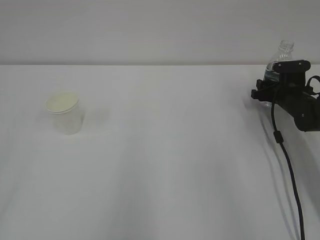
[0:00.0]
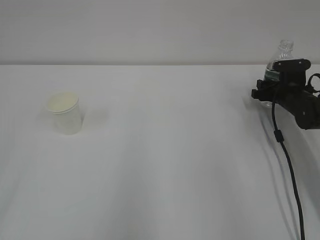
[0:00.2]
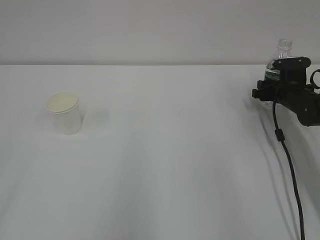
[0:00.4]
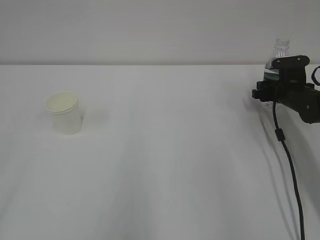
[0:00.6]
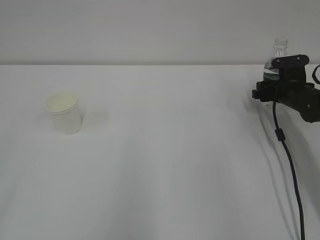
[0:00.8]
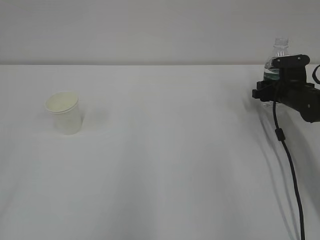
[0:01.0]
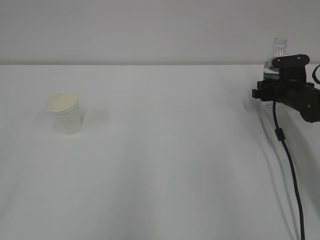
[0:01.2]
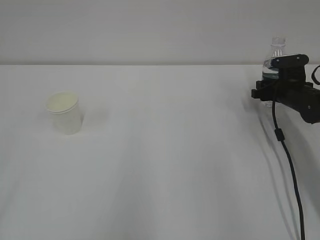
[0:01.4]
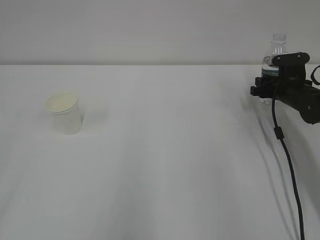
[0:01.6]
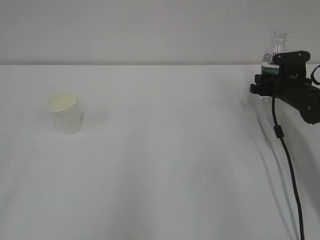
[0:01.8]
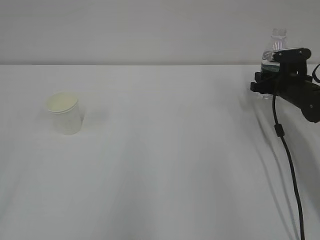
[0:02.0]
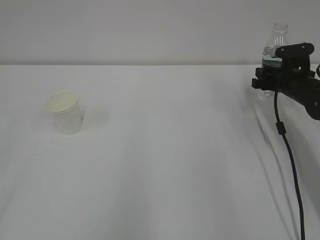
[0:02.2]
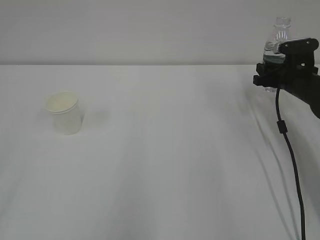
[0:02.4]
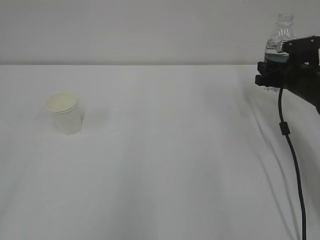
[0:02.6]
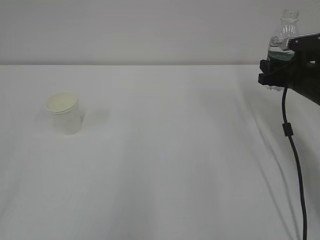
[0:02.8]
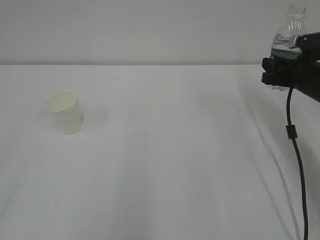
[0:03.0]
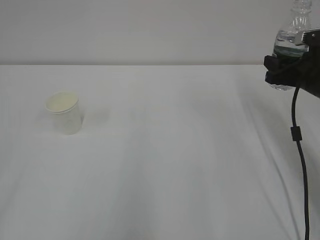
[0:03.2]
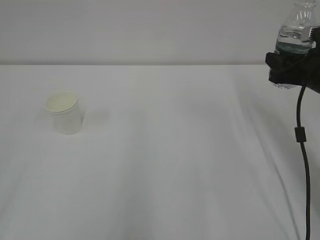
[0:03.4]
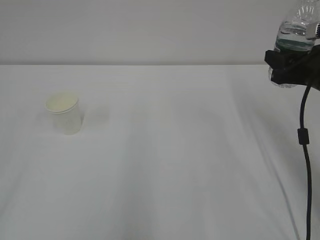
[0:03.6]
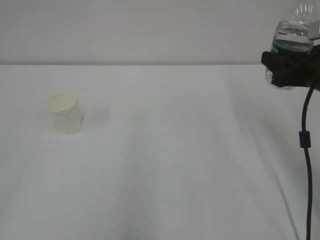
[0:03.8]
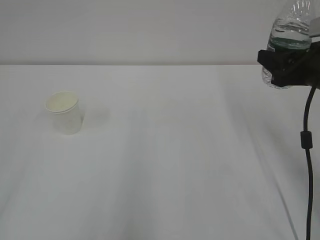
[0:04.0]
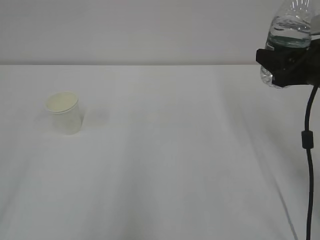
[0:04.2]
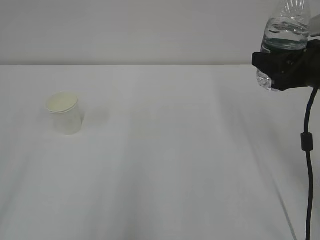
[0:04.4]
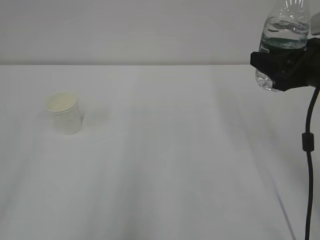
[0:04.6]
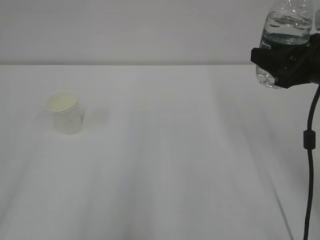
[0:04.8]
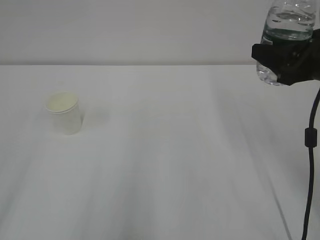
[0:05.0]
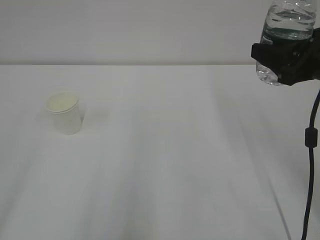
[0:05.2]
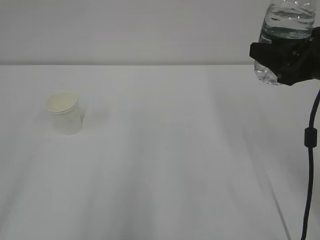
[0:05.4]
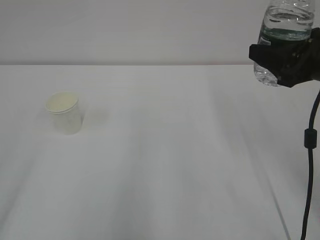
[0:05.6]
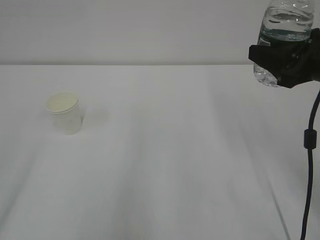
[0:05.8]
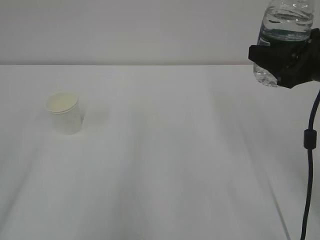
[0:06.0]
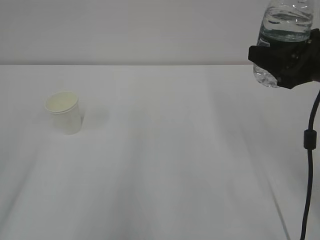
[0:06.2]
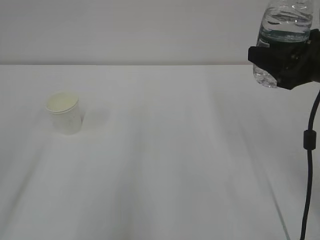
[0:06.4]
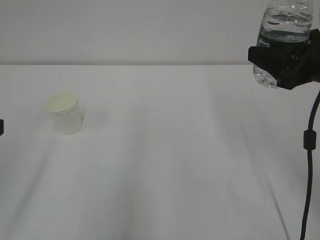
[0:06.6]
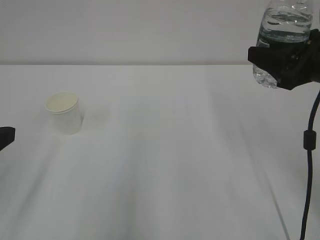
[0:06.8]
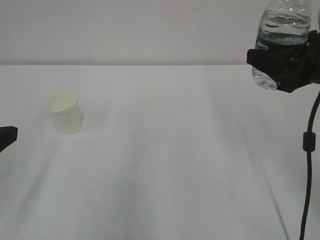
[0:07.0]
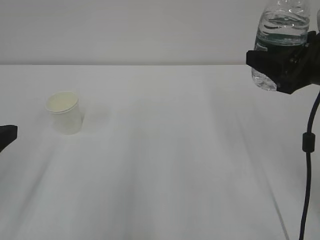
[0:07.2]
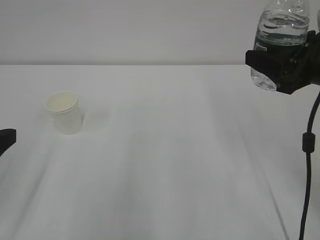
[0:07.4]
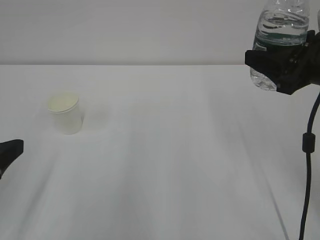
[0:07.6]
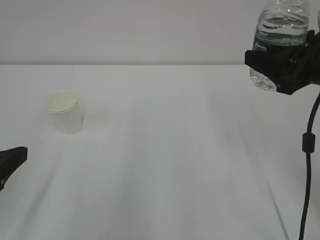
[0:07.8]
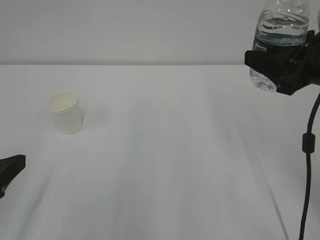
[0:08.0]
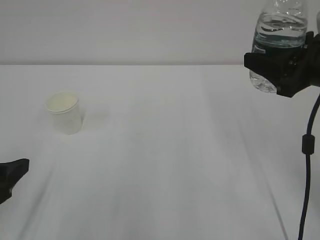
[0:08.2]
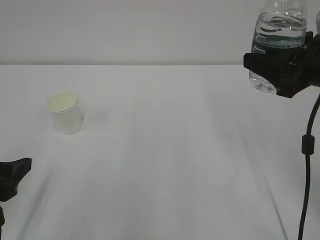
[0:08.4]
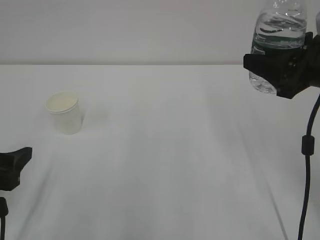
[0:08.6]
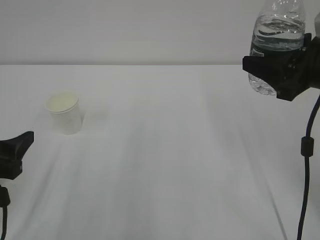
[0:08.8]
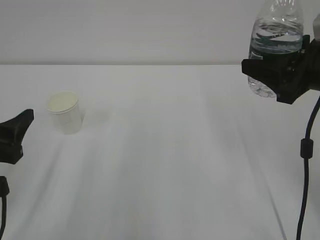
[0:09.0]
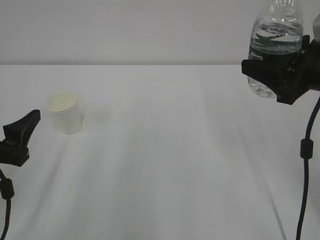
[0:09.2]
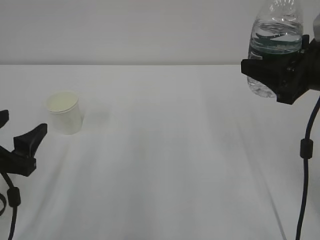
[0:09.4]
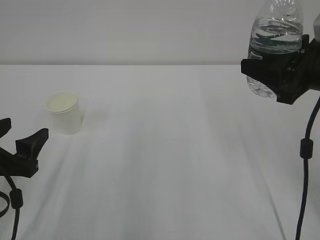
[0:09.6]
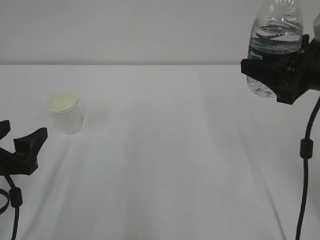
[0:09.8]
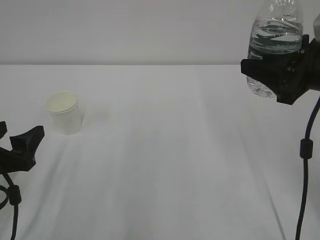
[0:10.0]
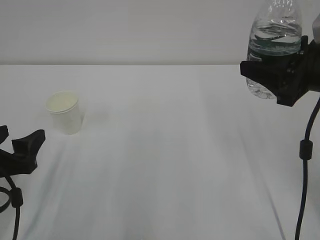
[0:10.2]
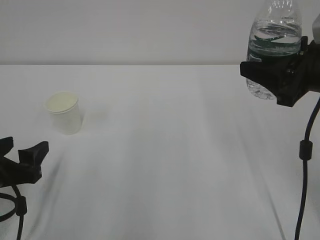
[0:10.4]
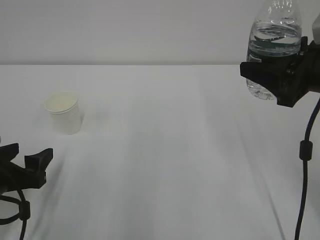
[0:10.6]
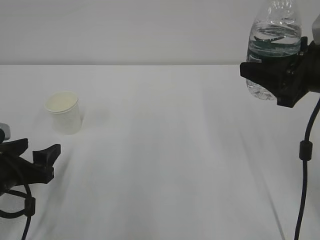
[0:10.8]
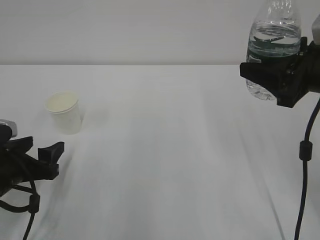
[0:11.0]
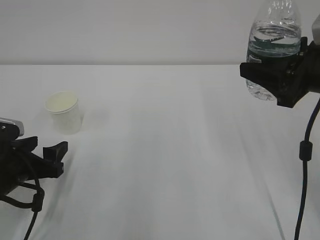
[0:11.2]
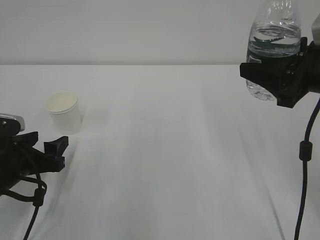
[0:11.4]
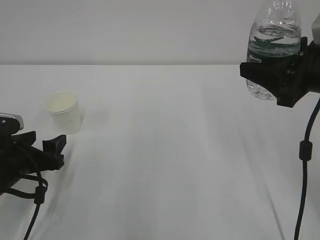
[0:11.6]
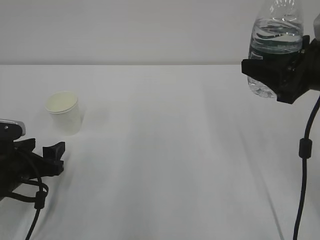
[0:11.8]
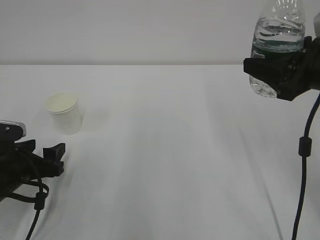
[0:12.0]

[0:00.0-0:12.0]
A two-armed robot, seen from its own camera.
0:00.0 to 0:01.6: The grippers move only a little.
0:01.6 to 0:03.0: The right gripper travels upward and backward by about 10 cm.
0:03.0 to 0:04.4: The right gripper travels backward and upward by about 10 cm.
0:06.0 to 0:07.6: The left gripper is displaced downward and forward by roughly 10 cm.
0:09.0 to 0:10.4: The left gripper travels downward by some 5 cm.
0:10.4 to 0:12.0: The left gripper changes place by approximately 5 cm.

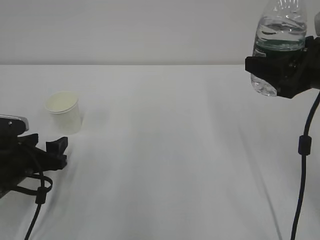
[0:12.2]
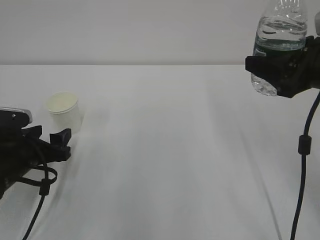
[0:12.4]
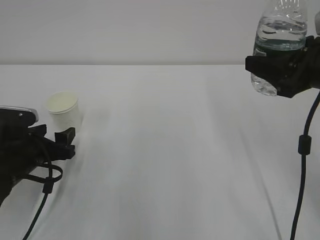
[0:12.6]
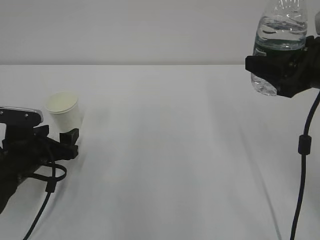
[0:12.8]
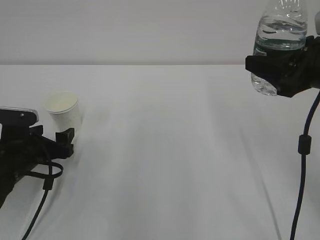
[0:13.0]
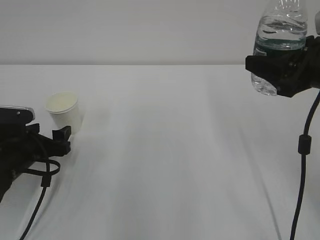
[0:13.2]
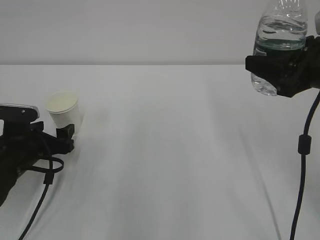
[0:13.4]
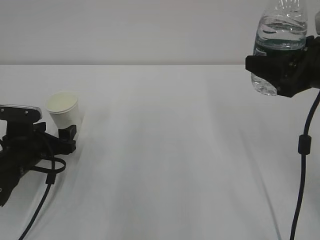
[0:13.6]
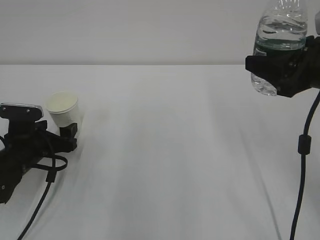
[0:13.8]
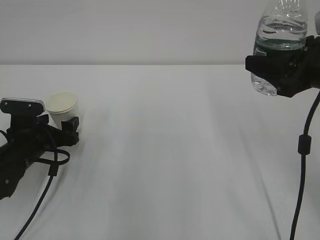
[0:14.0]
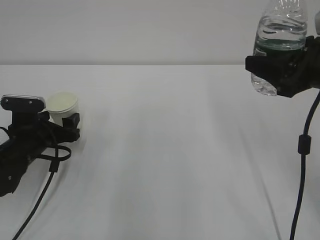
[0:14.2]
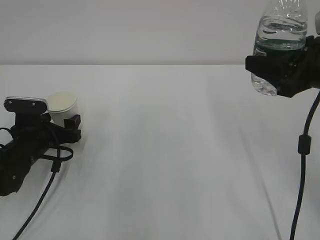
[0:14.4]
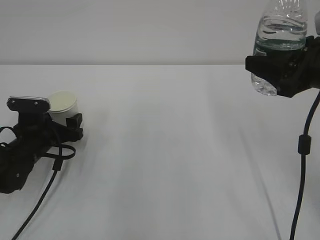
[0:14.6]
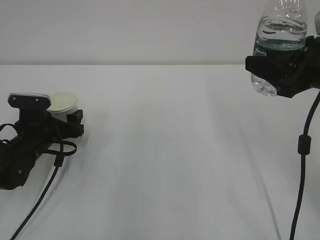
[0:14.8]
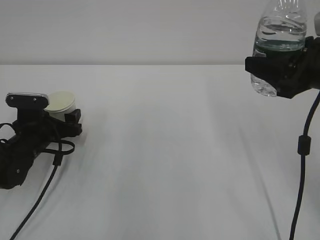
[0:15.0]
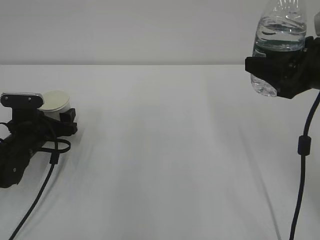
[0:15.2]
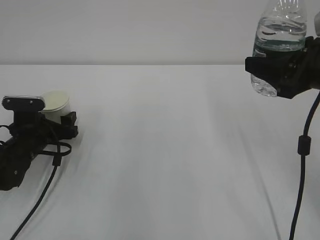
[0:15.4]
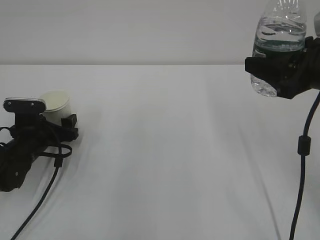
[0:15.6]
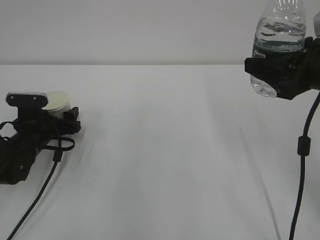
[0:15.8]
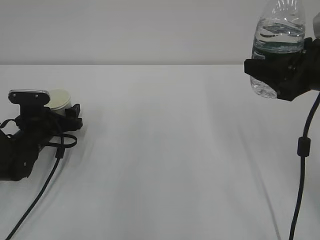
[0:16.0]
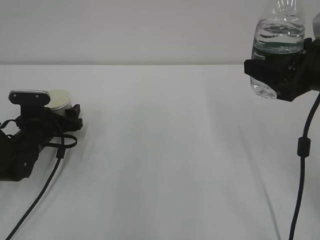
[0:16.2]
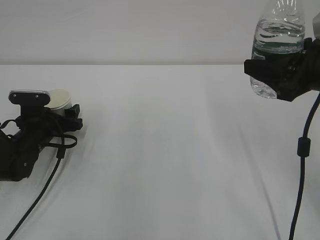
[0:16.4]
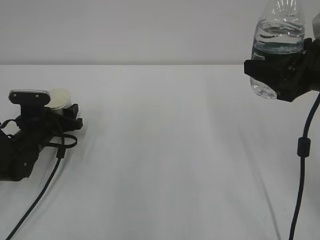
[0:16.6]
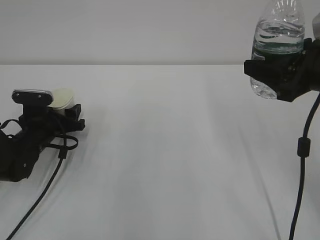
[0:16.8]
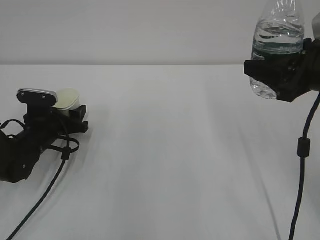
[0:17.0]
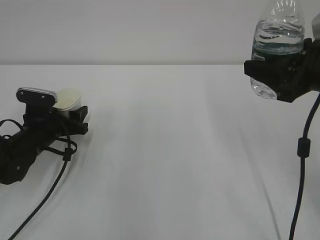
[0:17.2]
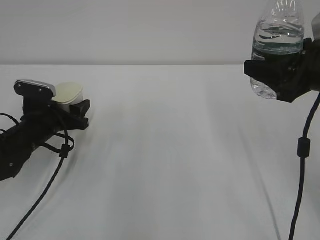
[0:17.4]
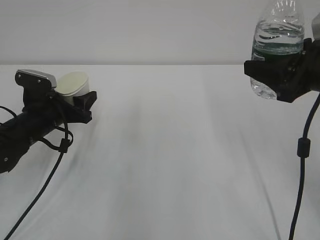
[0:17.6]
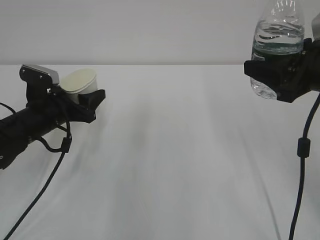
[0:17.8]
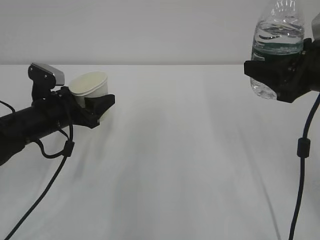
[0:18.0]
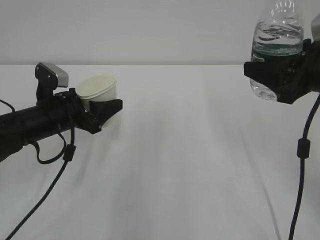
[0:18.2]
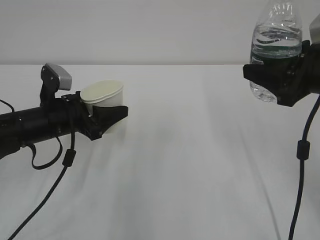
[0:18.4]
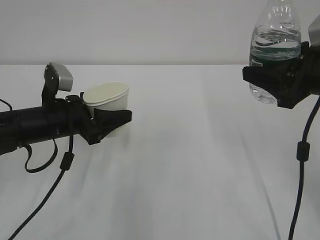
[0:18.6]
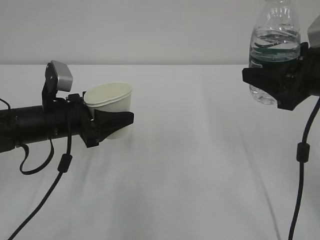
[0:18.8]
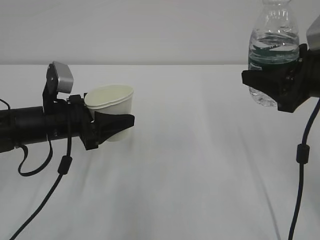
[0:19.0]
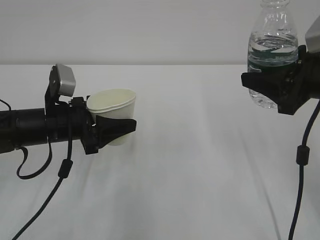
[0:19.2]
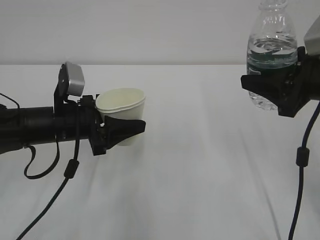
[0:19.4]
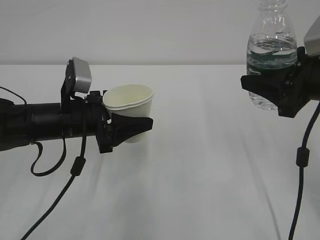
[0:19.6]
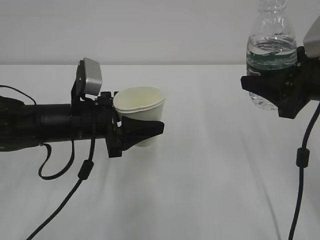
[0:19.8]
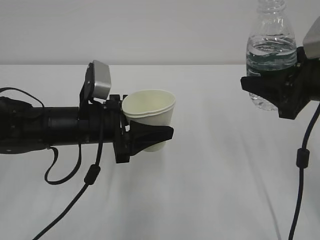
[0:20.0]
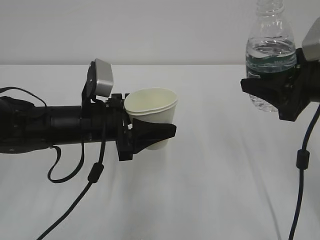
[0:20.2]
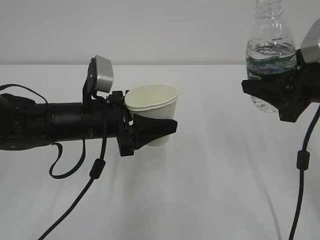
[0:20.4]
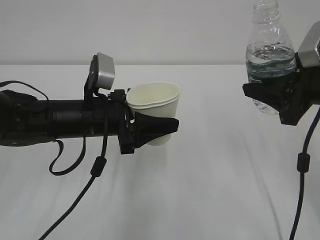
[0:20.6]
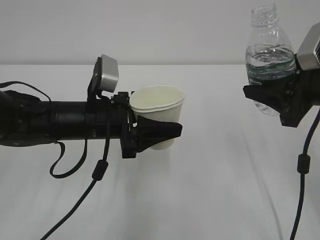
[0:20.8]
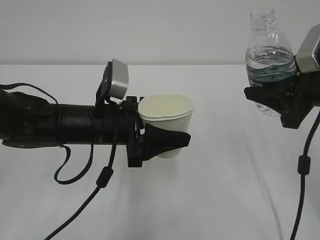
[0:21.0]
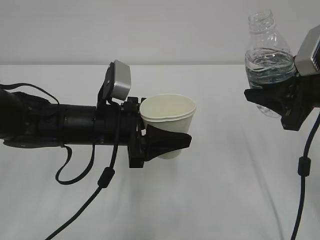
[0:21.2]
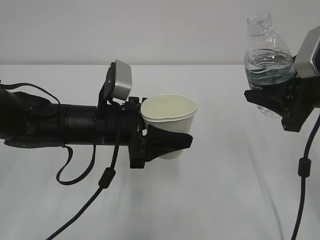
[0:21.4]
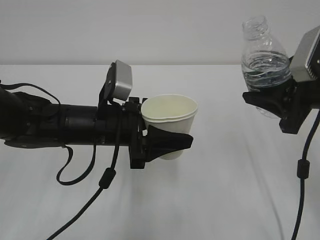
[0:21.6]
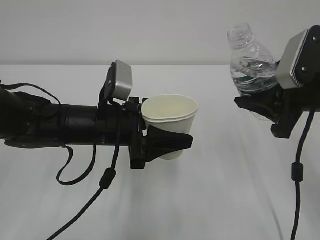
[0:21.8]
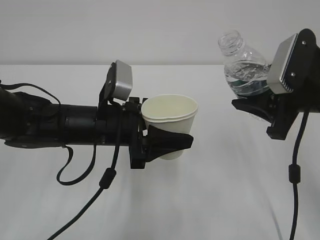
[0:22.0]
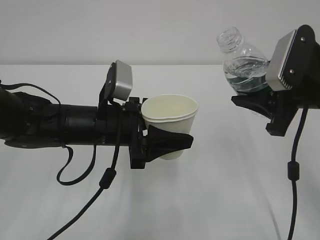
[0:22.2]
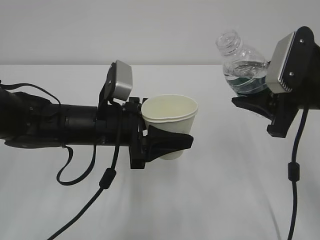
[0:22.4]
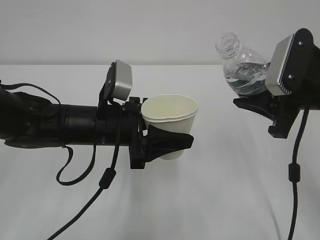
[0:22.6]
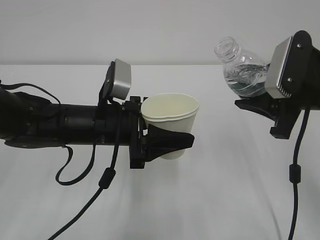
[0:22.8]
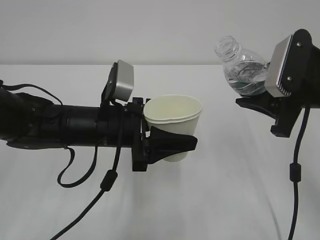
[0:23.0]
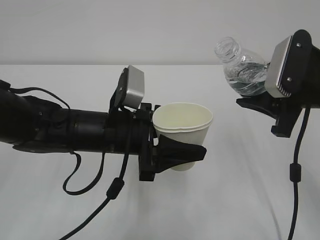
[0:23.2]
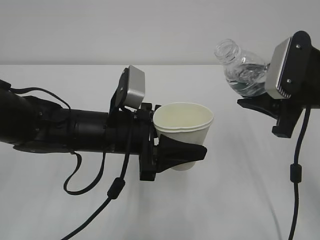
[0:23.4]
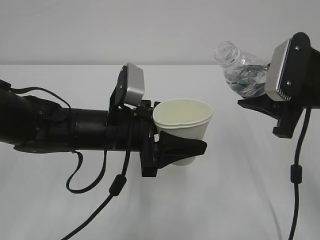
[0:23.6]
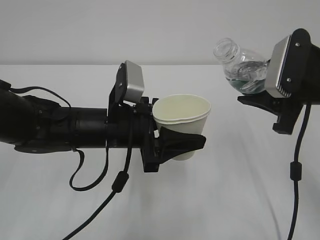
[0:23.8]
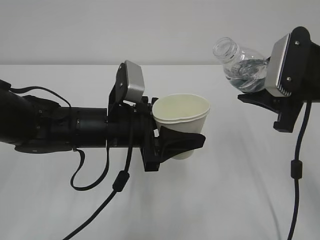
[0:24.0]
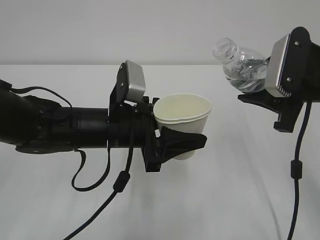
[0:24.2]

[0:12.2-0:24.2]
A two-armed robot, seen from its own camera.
0:12.2 to 0:13.8: The left gripper travels forward by some 5 cm, and opens.
0:13.8 to 0:15.2: The grippers move only a little.
0:15.2 to 0:16.6: The left gripper closes up.
0:16.6 to 0:18.2: The left gripper is displaced upward and to the right by about 10 cm.
0:18.2 to 0:19.8: The left gripper shifts approximately 5 cm to the right.
0:19.8 to 0:21.2: The grippers make only small movements.
0:21.2 to 0:22.6: The grippers move only a little.
0:22.6 to 0:24.2: The grippers make only small movements.
